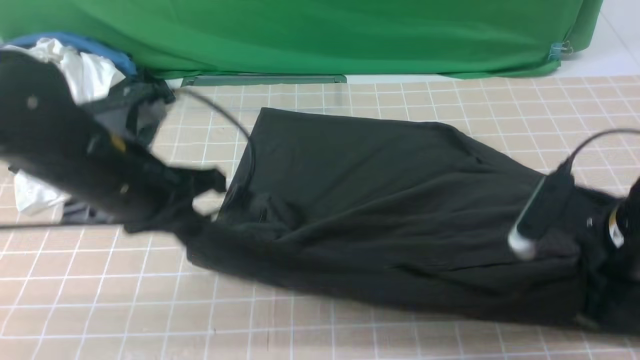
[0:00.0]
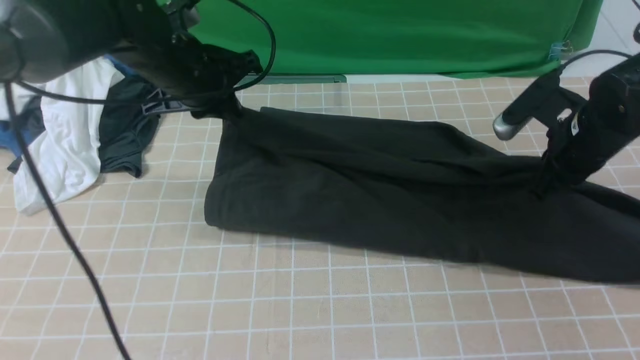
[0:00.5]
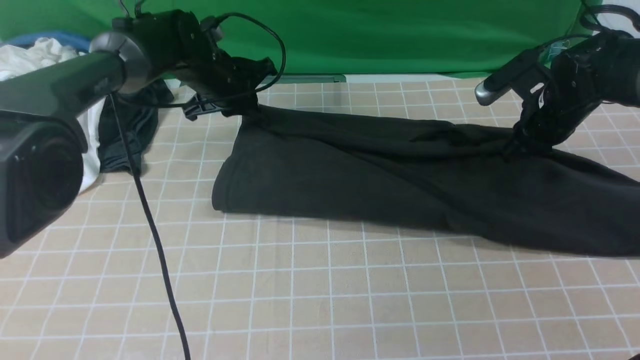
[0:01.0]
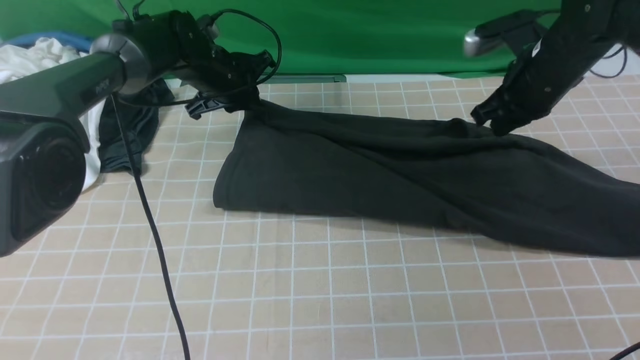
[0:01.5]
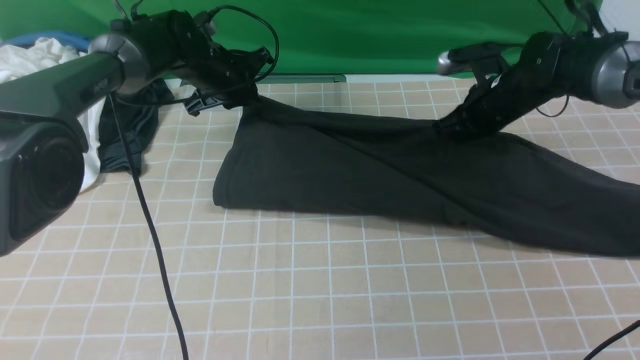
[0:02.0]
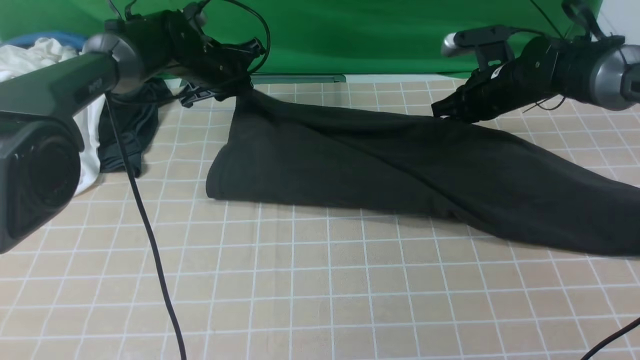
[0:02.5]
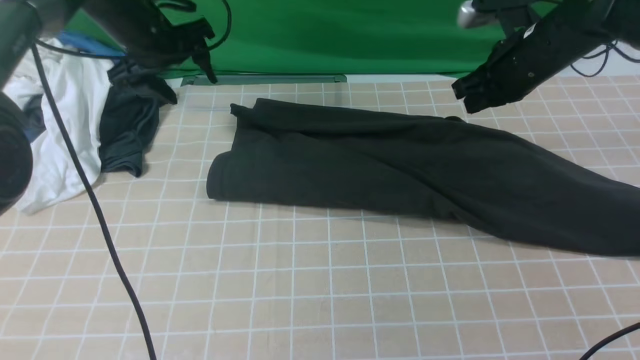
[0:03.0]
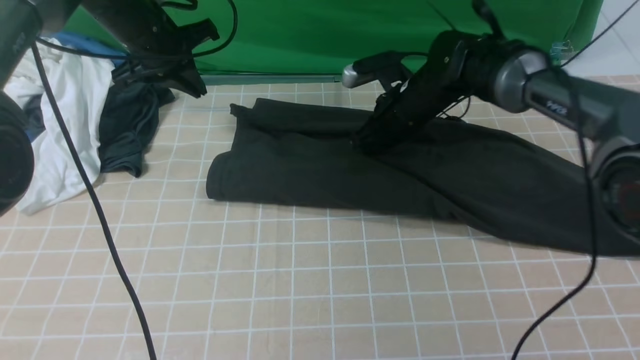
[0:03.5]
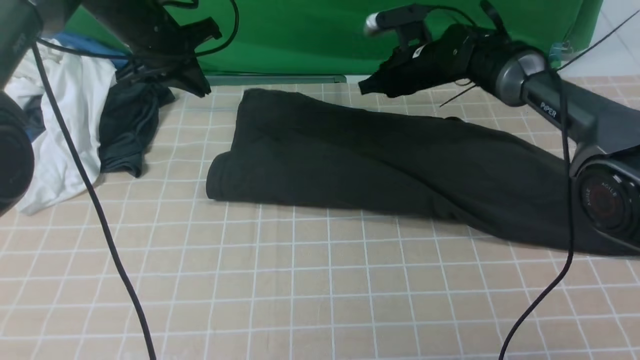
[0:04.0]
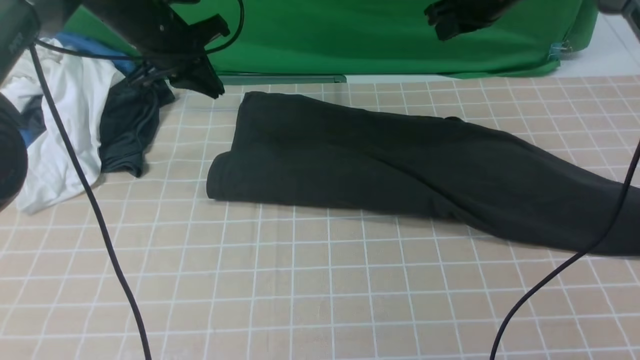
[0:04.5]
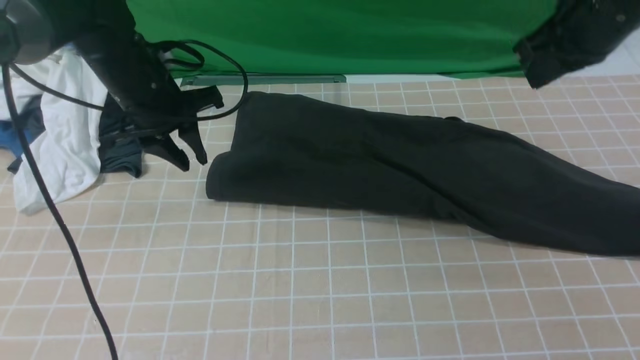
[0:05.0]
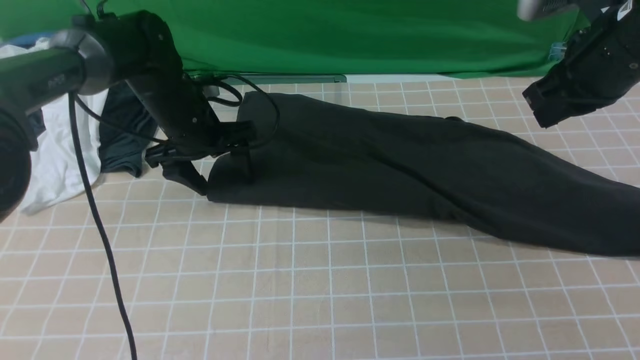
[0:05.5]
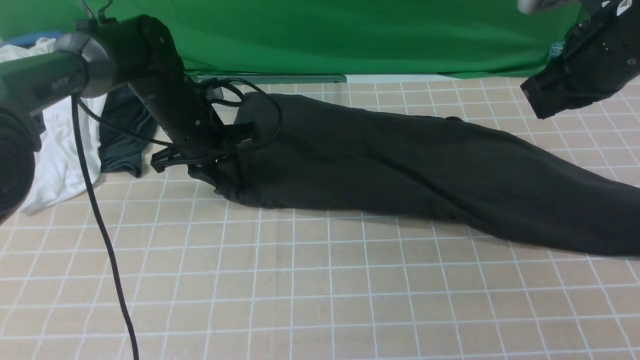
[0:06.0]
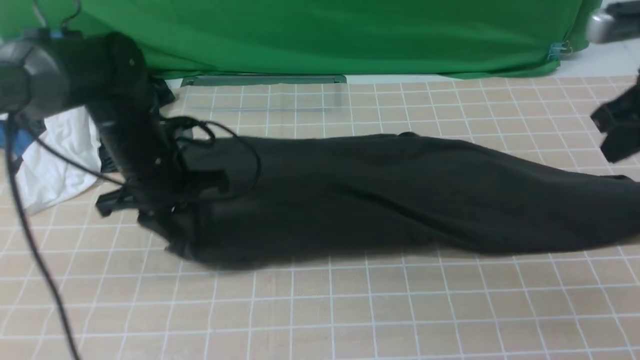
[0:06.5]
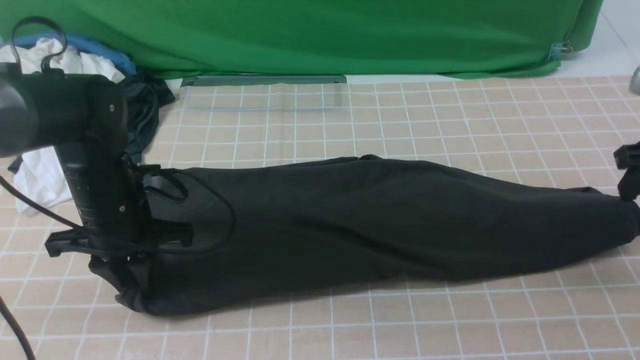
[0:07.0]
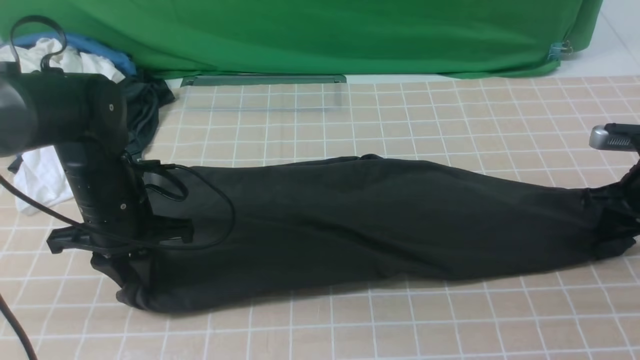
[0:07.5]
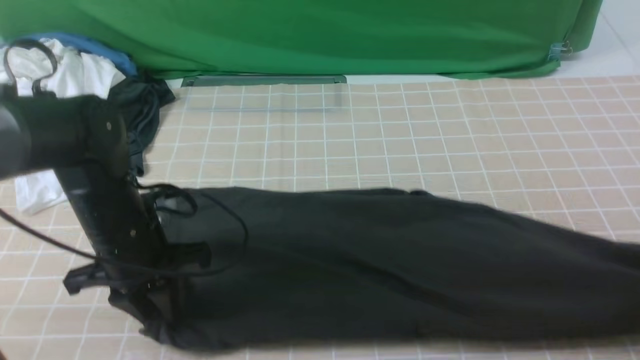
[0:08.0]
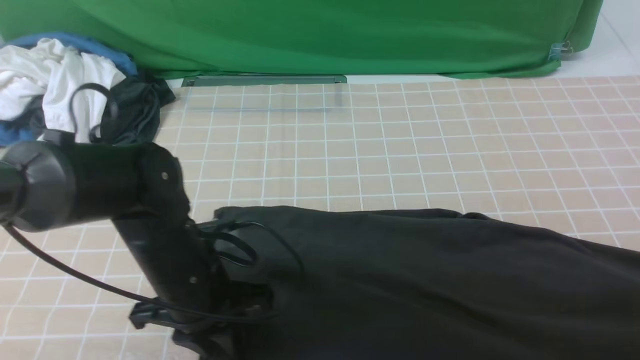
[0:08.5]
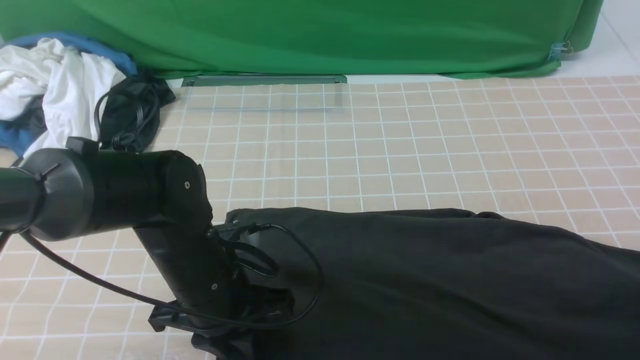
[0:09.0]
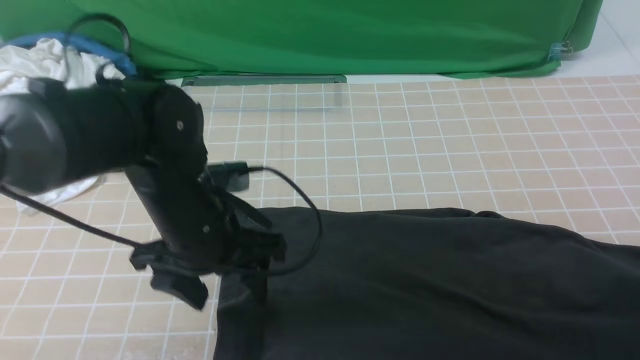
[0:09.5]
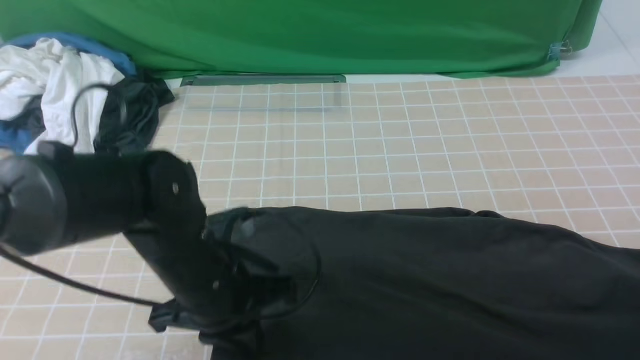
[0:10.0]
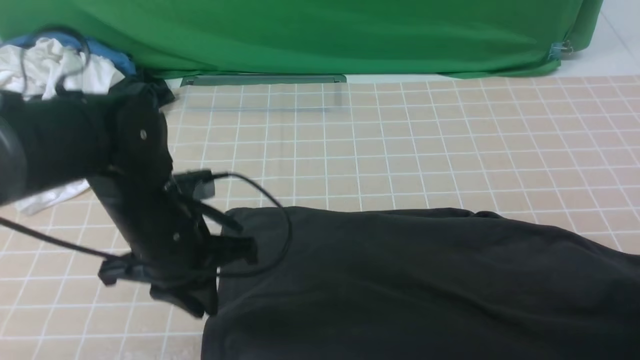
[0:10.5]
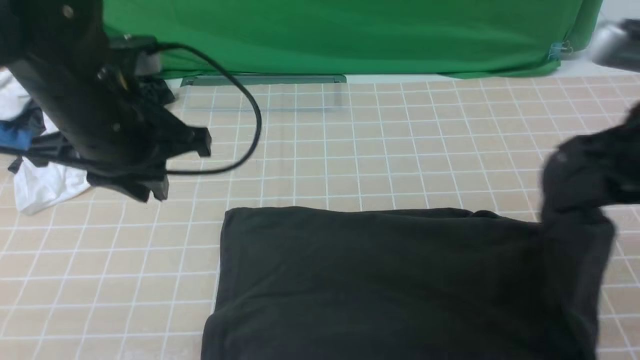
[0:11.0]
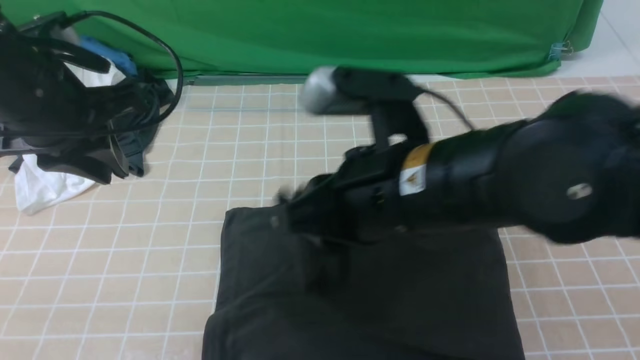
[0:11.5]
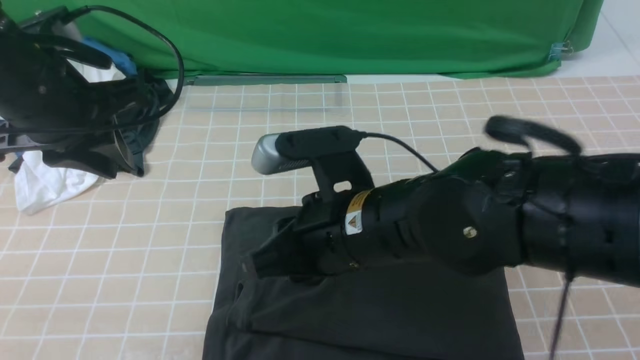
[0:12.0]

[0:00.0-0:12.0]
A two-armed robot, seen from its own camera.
Step, 0:00.0 to 0:02.5: use both arms to drag the lower edge of the fabric forward and fold it over the upper edge.
Step, 0:03.0 to 0:10.0: use the right arm to clamp the right edge of the fabric.
Step, 0:10.5 to 0:11.5: use the right arm to drag the right edge of the fabric to the left and folds it over the left edge.
0:00.0 to 0:02.0: Both grippers travel together forward, some 25 cm.
0:02.0 to 0:04.0: The right gripper heads to the left and forward, covering some 10 cm; the left gripper is displaced upward and to the left by approximately 10 cm, and opens and closes again.
0:04.0 to 0:06.0: The right gripper is displaced backward, upward and to the right by roughly 25 cm; the left gripper goes approximately 10 cm downward and backward, and opens, then closes once more.
0:06.0 to 0:08.0: The left gripper goes some 15 cm backward, while the right gripper is displaced to the right, downward and backward by roughly 20 cm, and opens and closes again.
0:08.0 to 0:10.0: The left gripper moves to the right, roughly 10 cm, and opens, then closes again; the right gripper moves about 5 cm.
0:10.0 to 0:12.0: The right gripper travels to the left by about 40 cm. Meanwhile the left gripper travels upward, to the left and forward by approximately 20 cm.

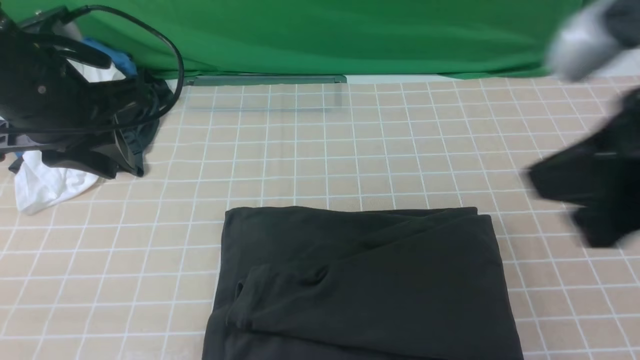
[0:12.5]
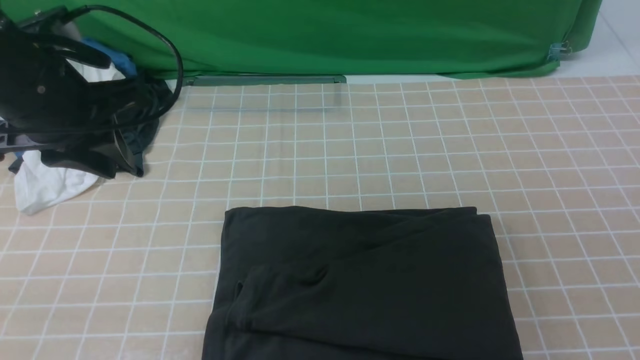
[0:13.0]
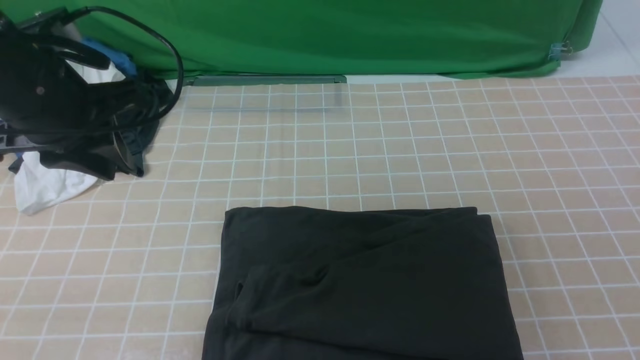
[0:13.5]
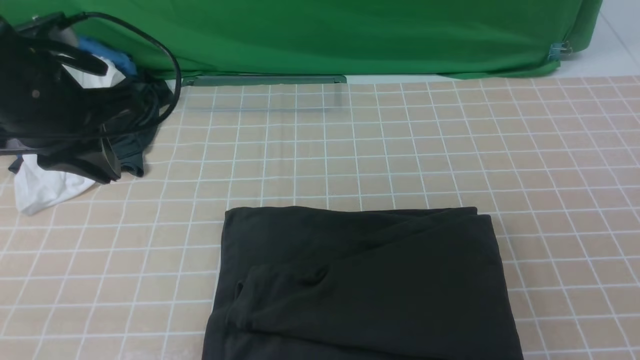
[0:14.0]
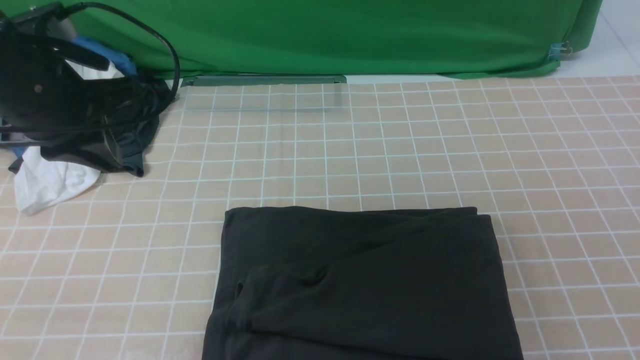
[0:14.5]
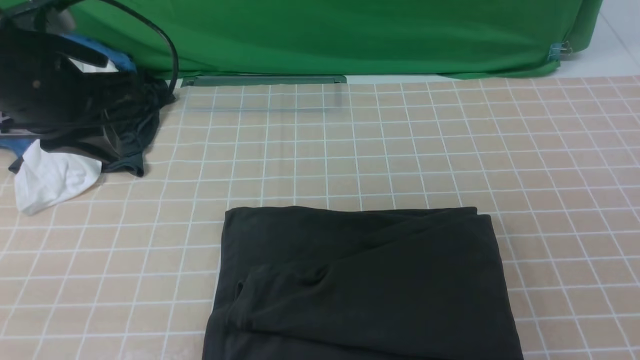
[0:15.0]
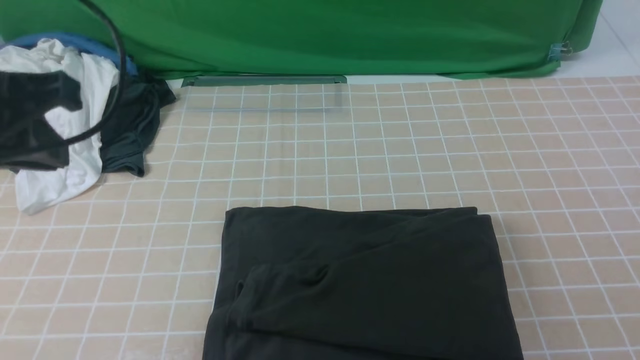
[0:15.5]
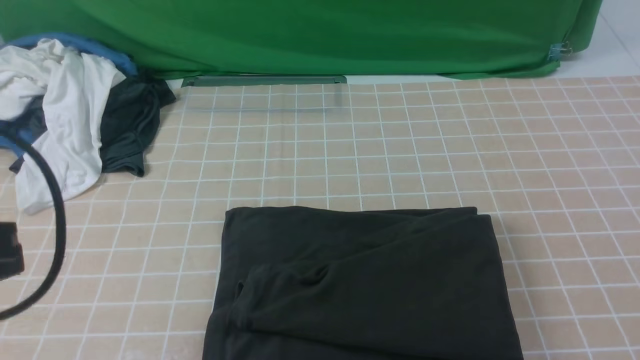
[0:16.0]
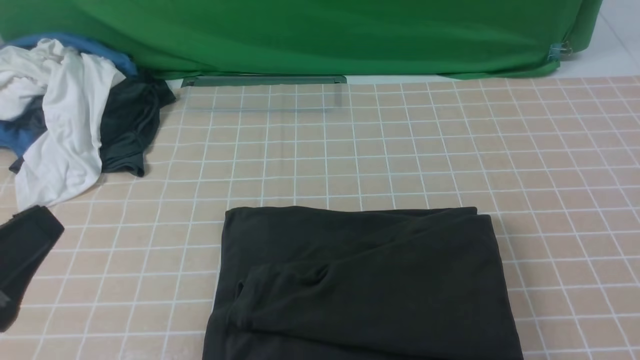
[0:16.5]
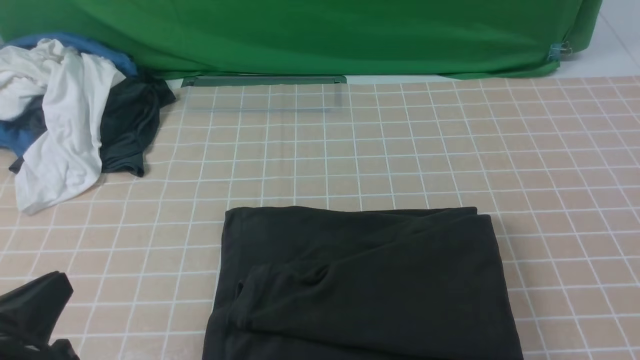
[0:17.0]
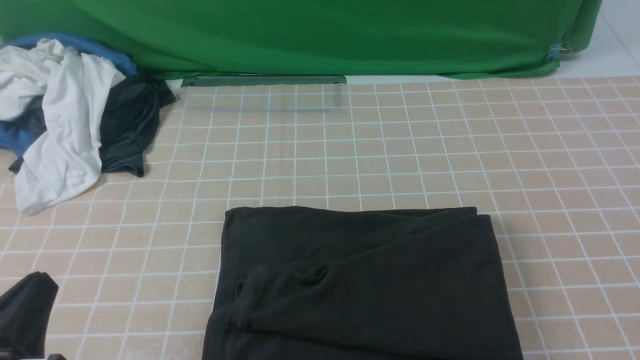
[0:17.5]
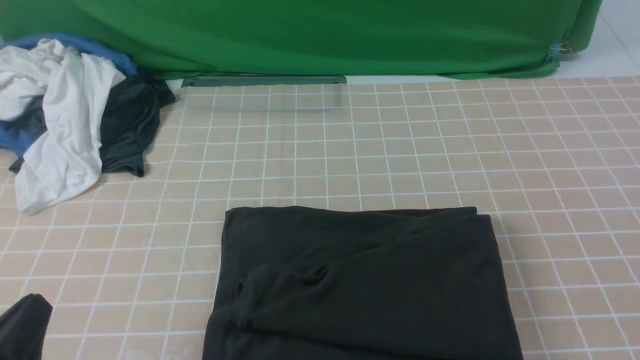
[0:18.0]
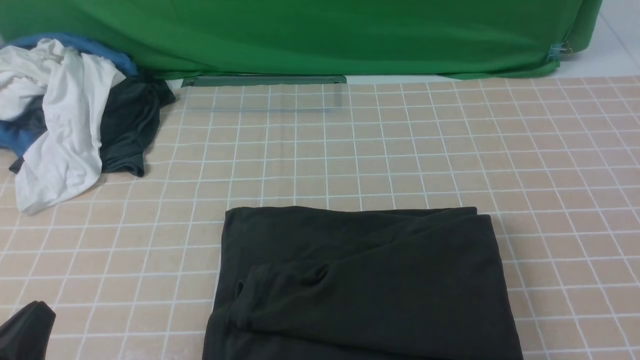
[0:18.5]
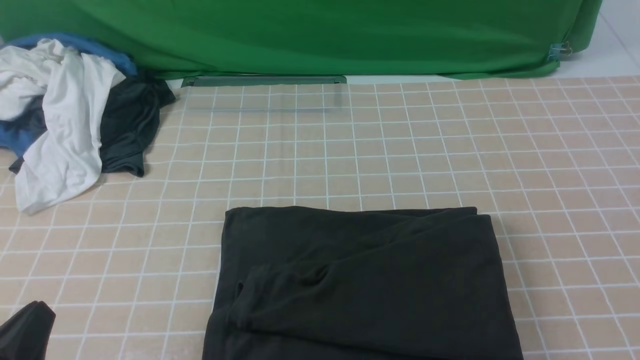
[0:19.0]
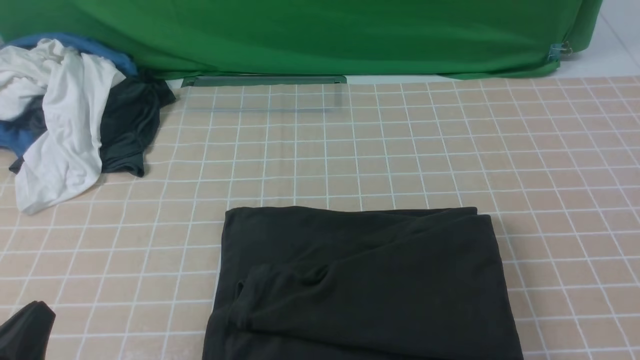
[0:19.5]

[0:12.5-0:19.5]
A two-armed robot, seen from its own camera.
0:12.5 to 0:14.5: The right gripper is displaced downward, to the right and backward by approximately 20 cm.
0:14.5 to 0:16.0: The left gripper travels backward by roughly 20 cm.
0:16.0 to 0:17.5: The left gripper travels downward by some 15 cm.
0:17.5 to 0:19.5: The grippers move only a little.

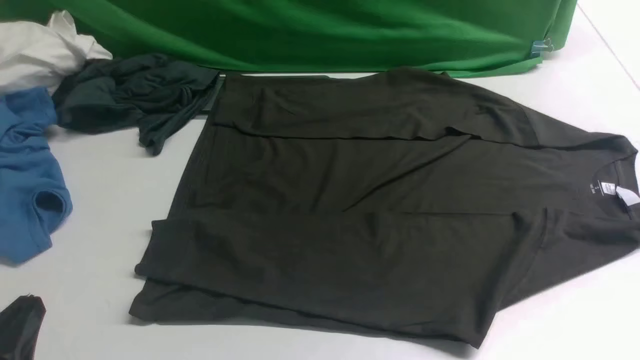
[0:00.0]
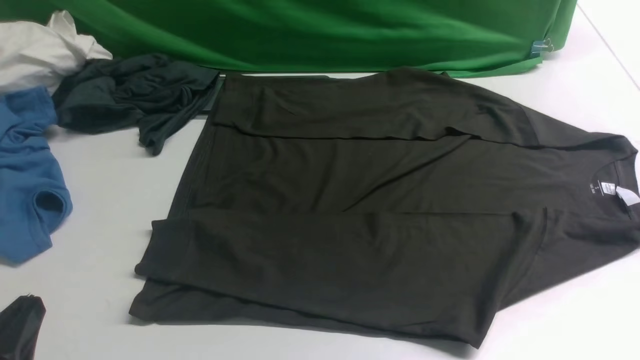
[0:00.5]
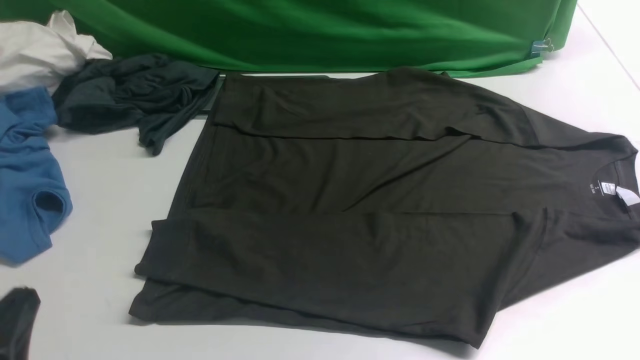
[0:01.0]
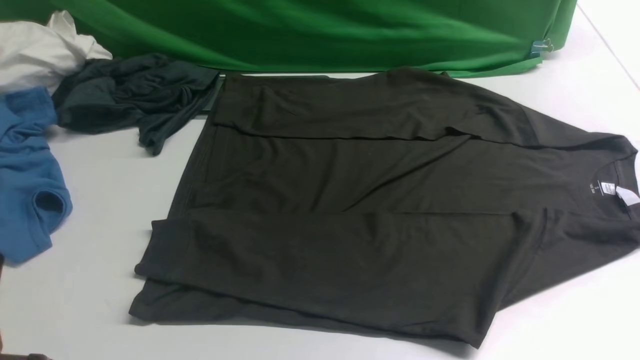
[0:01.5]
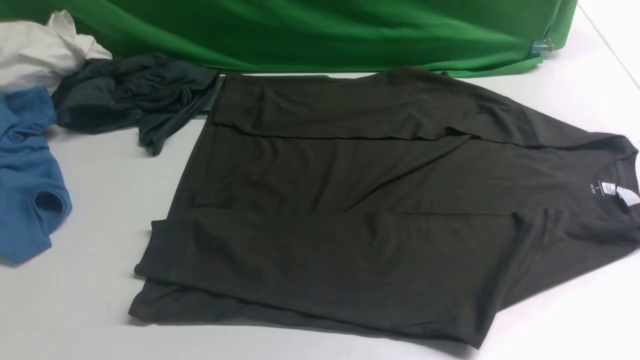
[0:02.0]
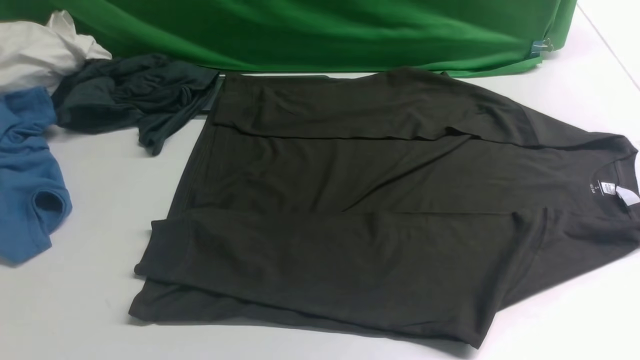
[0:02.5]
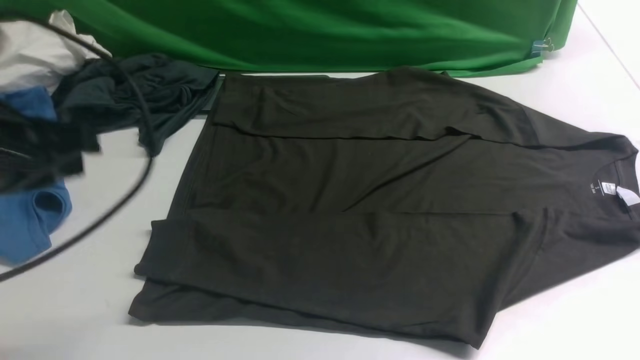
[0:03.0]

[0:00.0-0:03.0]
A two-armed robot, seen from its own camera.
0:01.5 to 0:03.0: The left gripper goes roughly 20 cm forward and upward.
